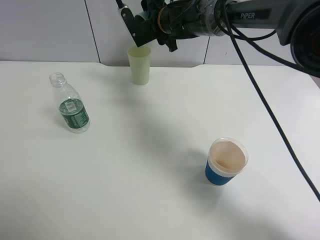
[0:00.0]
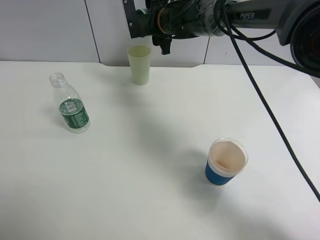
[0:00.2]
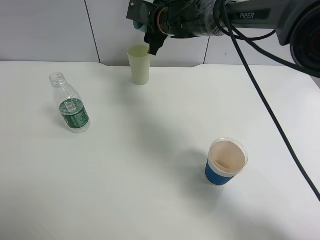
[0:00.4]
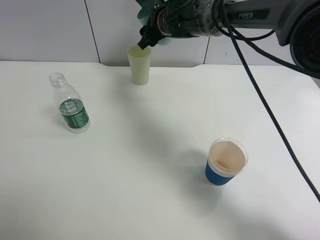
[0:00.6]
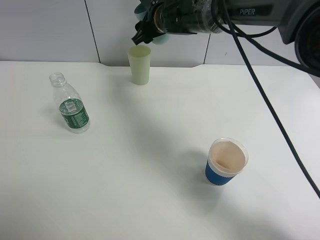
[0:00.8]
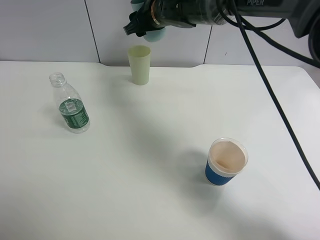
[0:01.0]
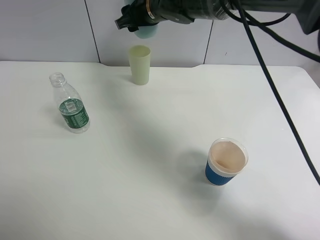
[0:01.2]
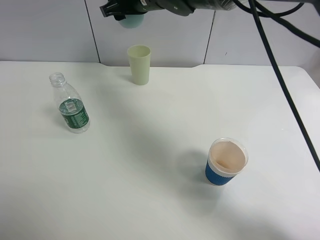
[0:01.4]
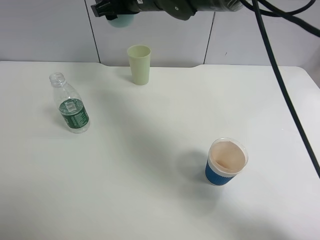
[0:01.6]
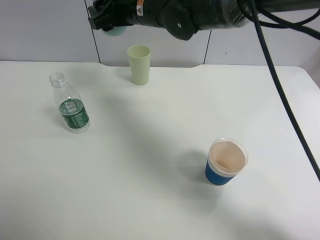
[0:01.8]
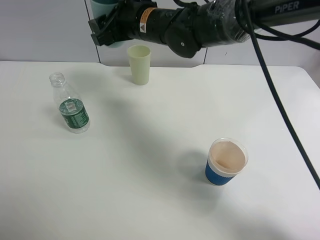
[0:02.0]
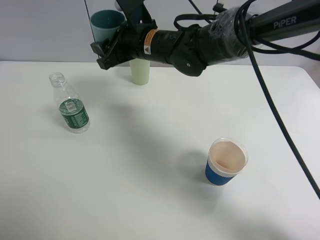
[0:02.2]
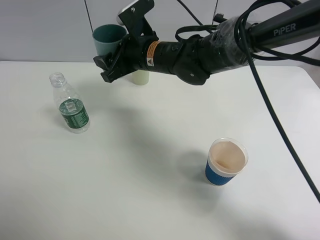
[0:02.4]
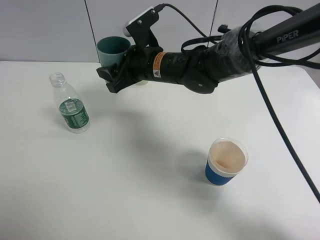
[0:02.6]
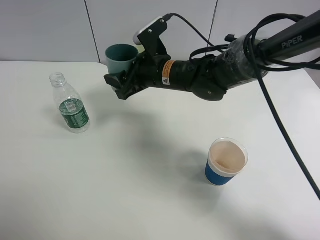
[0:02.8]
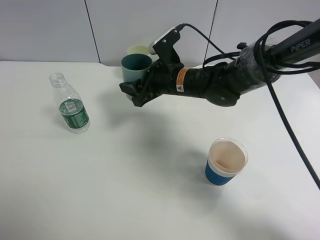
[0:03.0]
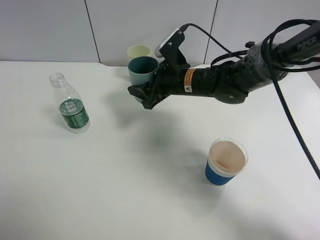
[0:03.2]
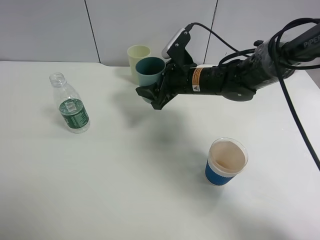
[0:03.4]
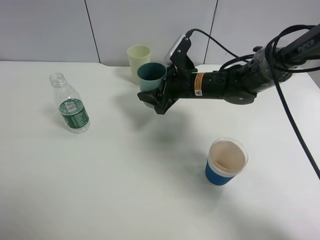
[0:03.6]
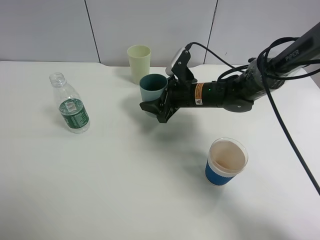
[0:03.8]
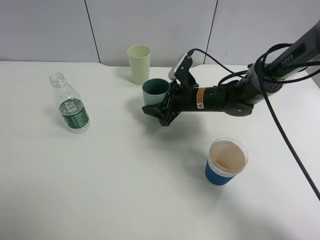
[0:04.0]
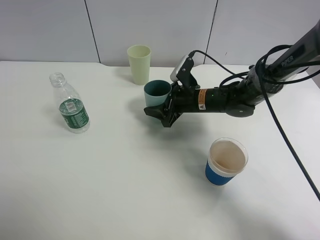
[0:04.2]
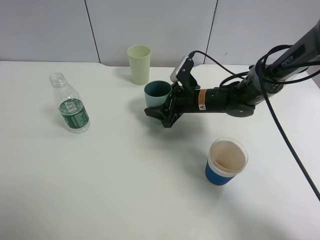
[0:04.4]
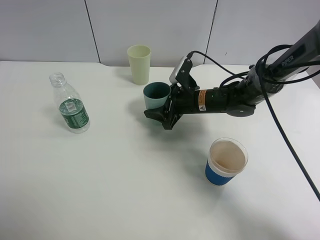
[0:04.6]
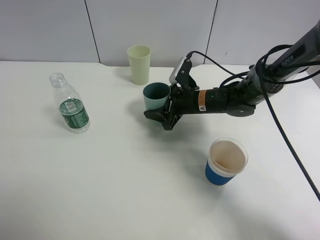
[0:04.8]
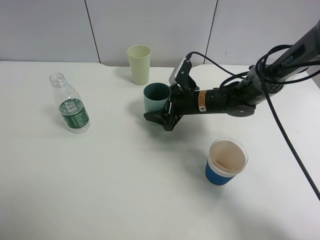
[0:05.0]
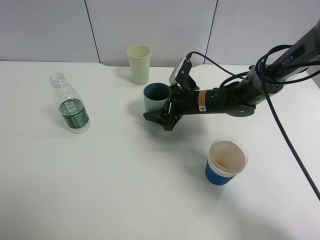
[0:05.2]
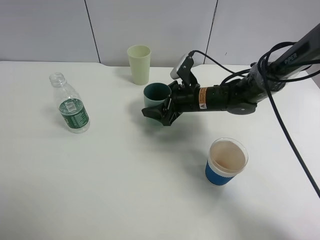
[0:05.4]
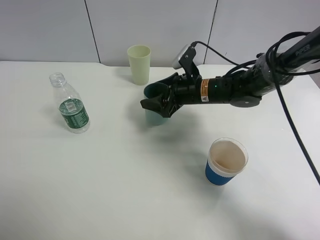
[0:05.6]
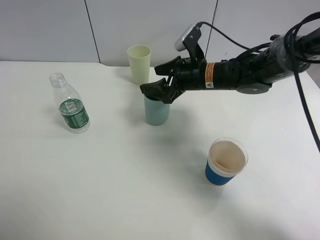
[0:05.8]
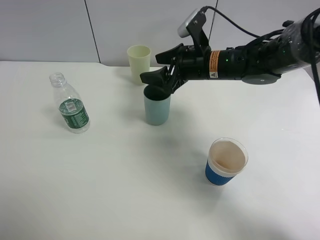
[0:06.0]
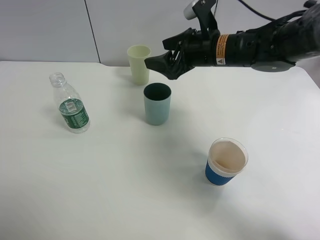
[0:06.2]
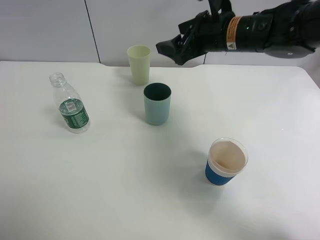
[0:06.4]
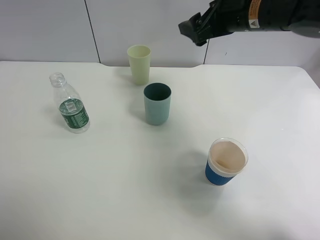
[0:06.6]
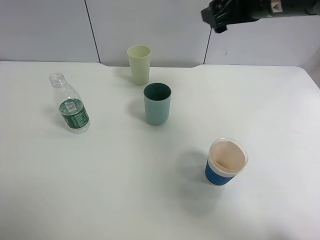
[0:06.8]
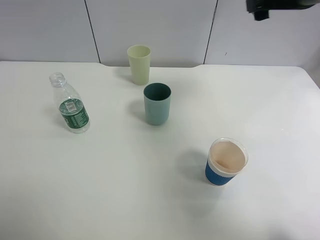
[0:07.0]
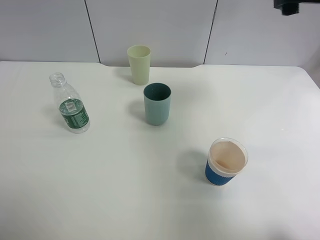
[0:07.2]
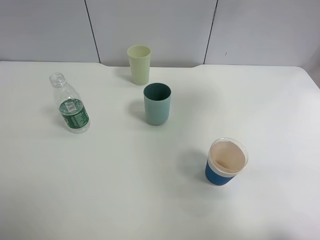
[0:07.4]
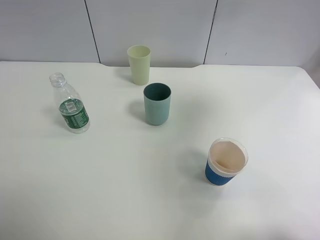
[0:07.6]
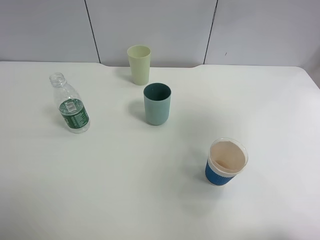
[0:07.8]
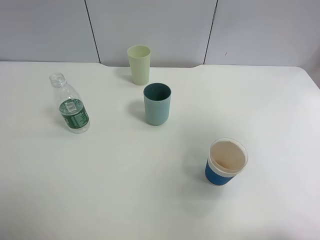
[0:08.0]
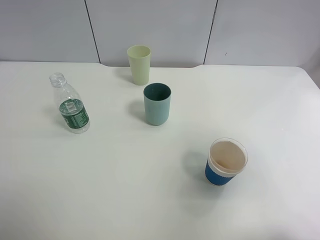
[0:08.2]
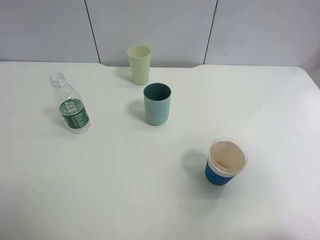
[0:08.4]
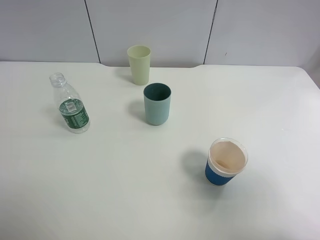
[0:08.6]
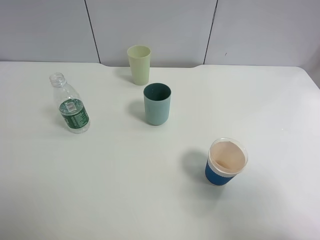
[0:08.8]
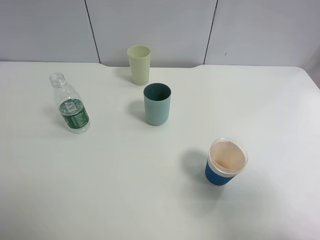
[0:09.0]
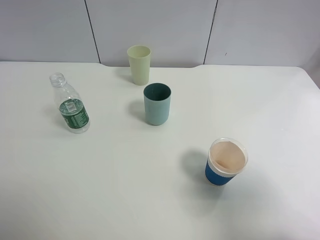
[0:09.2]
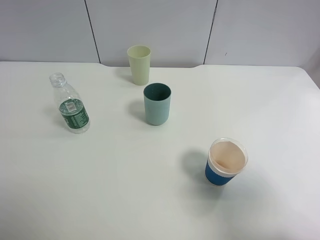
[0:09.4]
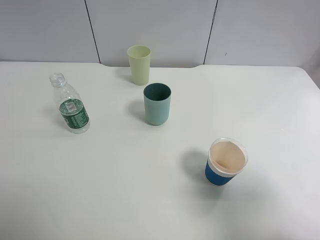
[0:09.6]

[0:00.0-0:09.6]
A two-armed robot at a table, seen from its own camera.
Task of the whole recording: use a clamp to hold the bottle of the drink, pour the beverage into a random cup, then clamp the cup containing the drink and pour the drink into another random cup.
Step, 0.6 to 5.2 s: Place the blue plastic cup on the table with right gripper.
0.0 to 1.6 s: The right gripper moves backward and upward, approximately 10 cm.
1.6 to 3.2 s: The right gripper is displaced downward and to the right by roughly 15 cm.
3.2 to 4.8 s: The right gripper moves downward, about 5 cm.
4.8 to 6.4 s: The right gripper is displaced upward by about 20 cm, and opens.
6.4 to 8.0 s: The right gripper moves backward, to the right and upward, approximately 40 cm.
8.0 to 9.6 s: The right gripper moves downward and backward, approximately 15 cm.

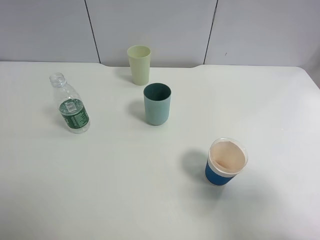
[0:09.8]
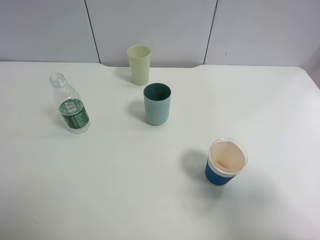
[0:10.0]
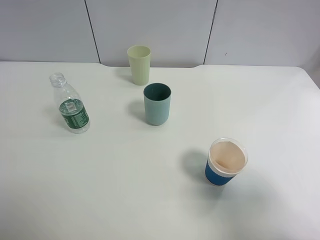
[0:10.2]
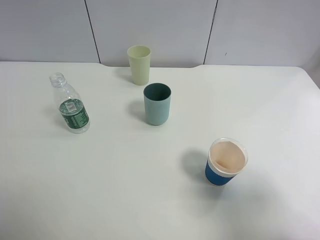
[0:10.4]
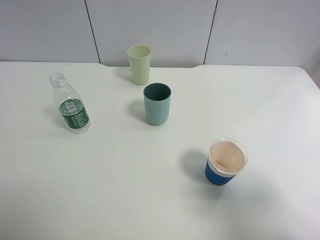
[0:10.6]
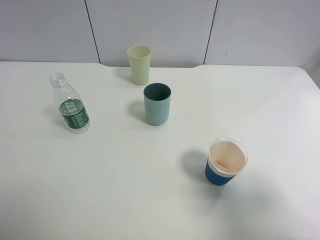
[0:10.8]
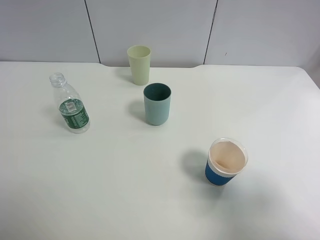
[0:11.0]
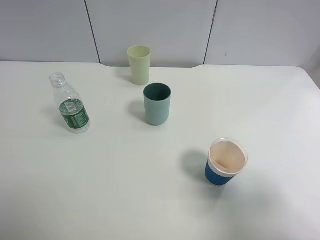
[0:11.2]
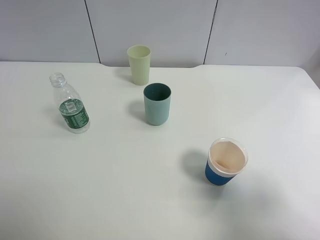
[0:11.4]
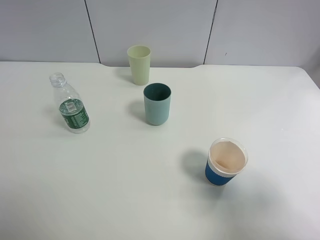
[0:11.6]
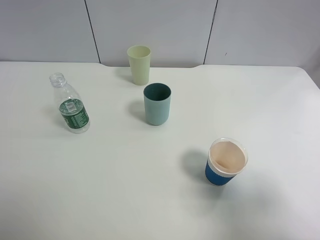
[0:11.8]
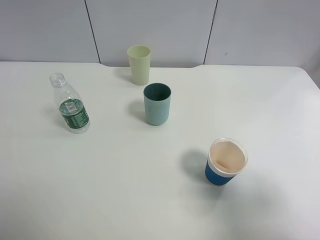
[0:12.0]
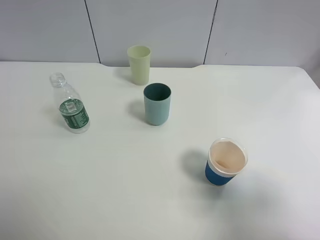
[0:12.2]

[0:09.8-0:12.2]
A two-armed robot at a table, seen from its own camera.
Task of the whole recording: use a clamp to hold the bottle of the drink, pour the beverage into a random cup, then clamp the cup containing the drink and pour the drink into another random cup.
11.0 to 12.2 s: Both grippers stay about where they are.

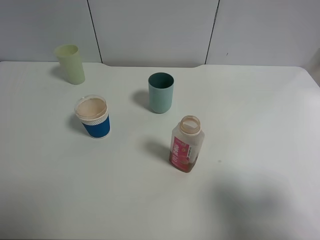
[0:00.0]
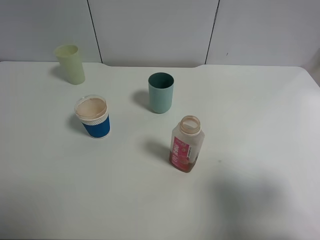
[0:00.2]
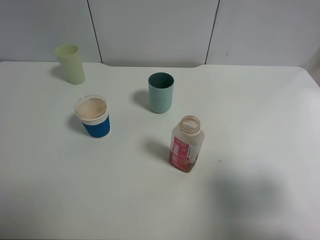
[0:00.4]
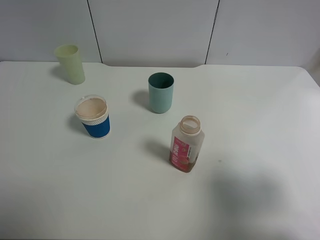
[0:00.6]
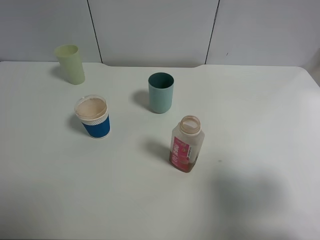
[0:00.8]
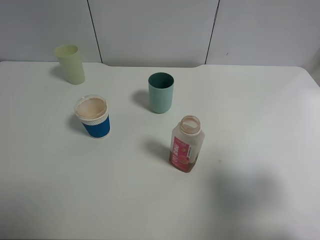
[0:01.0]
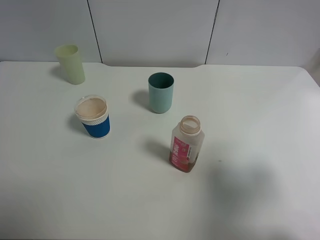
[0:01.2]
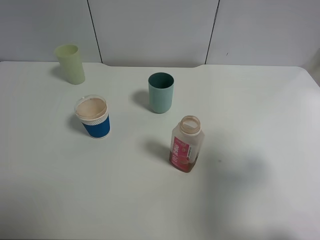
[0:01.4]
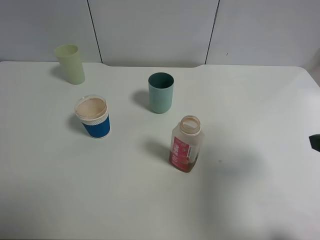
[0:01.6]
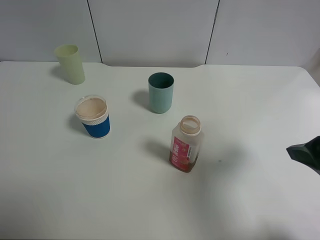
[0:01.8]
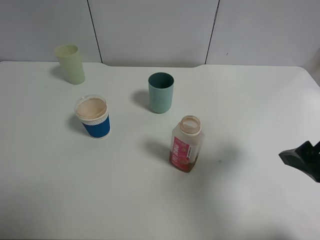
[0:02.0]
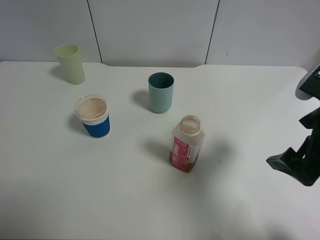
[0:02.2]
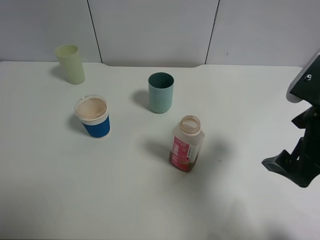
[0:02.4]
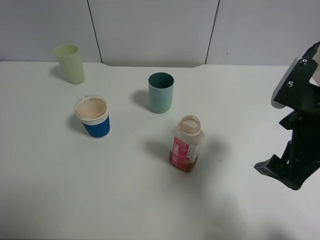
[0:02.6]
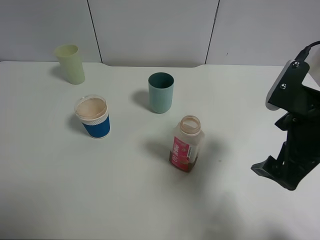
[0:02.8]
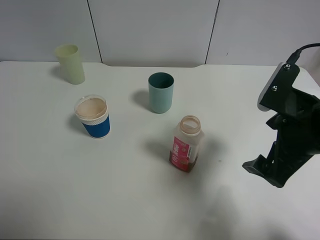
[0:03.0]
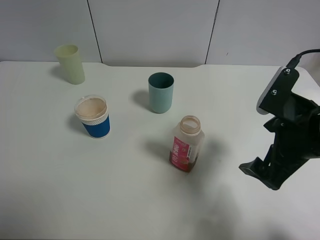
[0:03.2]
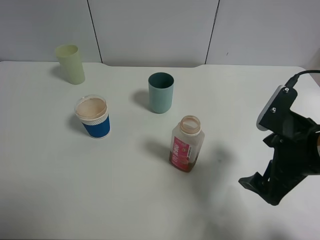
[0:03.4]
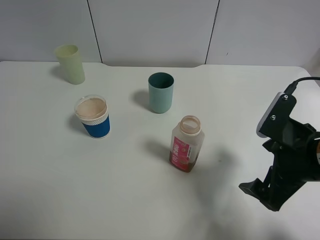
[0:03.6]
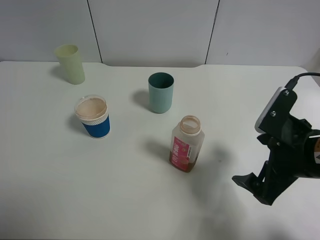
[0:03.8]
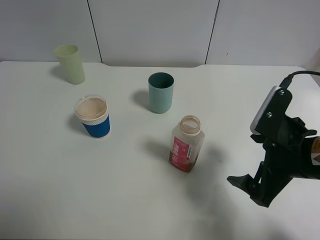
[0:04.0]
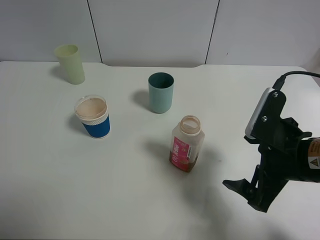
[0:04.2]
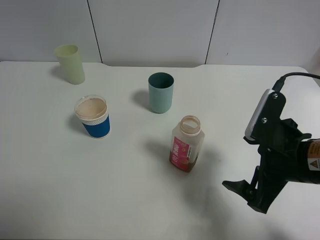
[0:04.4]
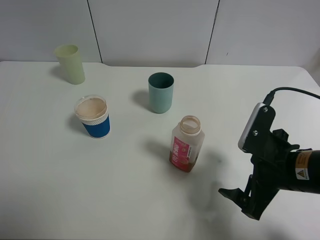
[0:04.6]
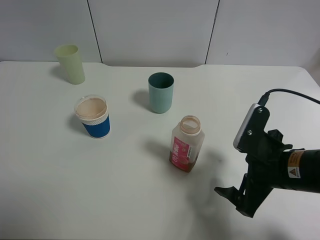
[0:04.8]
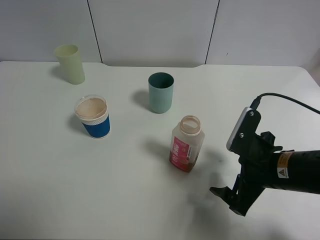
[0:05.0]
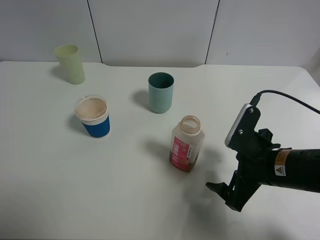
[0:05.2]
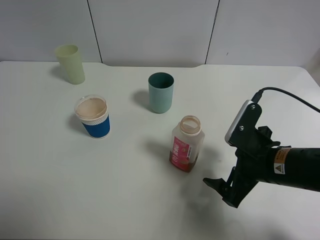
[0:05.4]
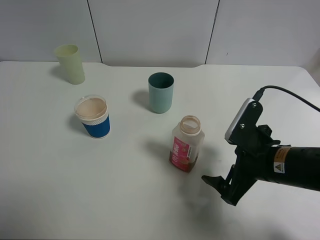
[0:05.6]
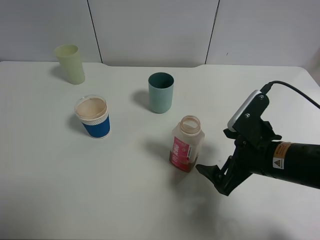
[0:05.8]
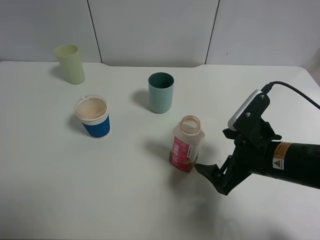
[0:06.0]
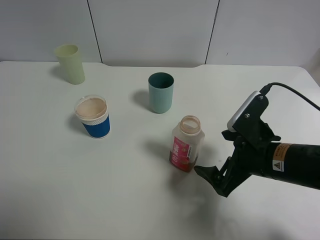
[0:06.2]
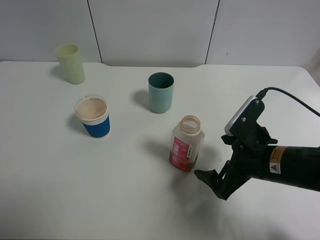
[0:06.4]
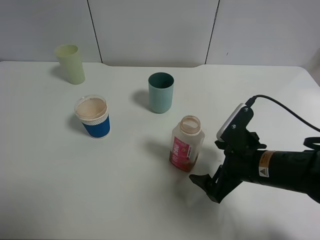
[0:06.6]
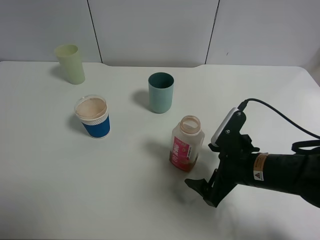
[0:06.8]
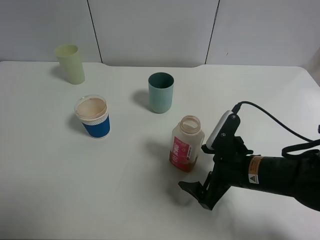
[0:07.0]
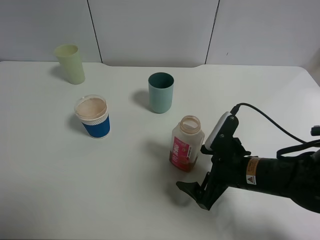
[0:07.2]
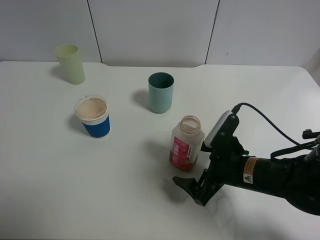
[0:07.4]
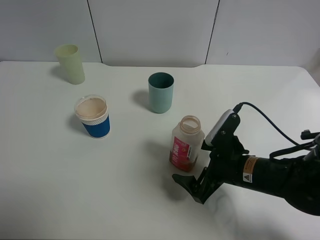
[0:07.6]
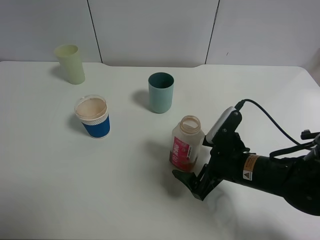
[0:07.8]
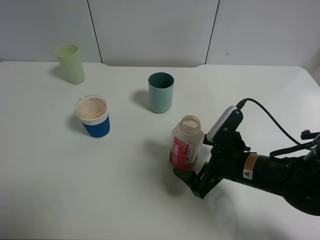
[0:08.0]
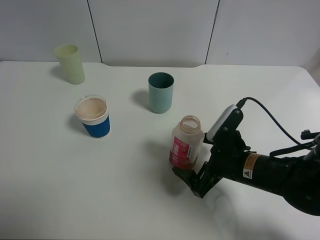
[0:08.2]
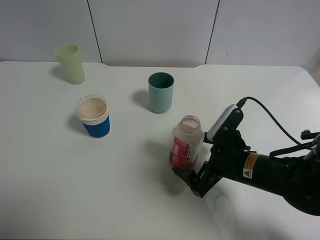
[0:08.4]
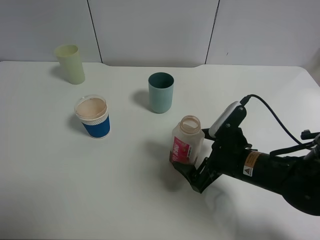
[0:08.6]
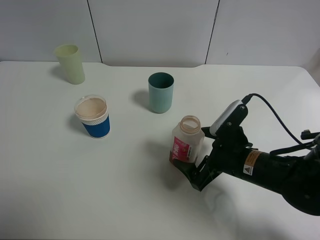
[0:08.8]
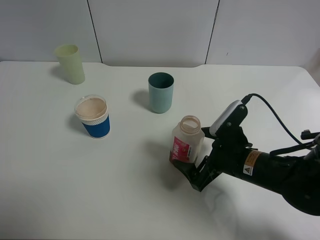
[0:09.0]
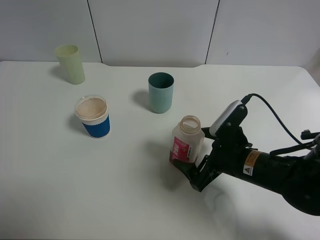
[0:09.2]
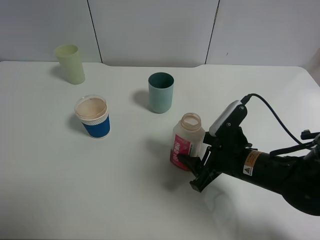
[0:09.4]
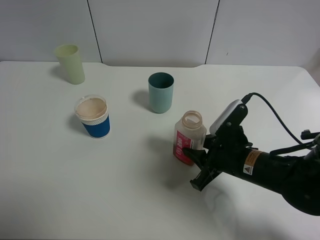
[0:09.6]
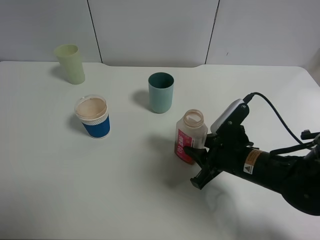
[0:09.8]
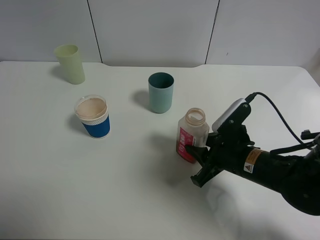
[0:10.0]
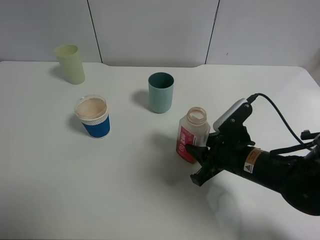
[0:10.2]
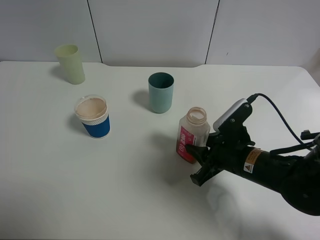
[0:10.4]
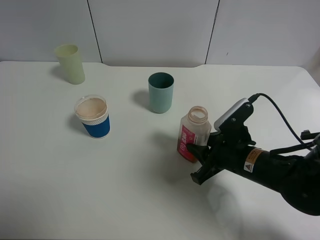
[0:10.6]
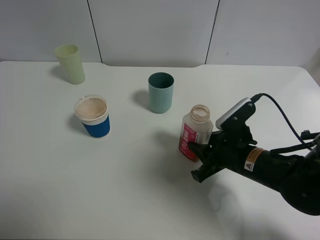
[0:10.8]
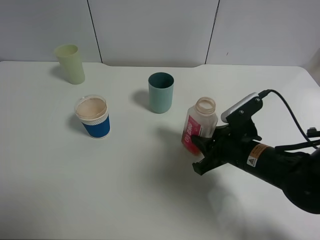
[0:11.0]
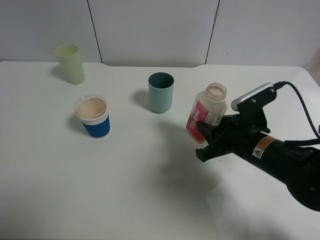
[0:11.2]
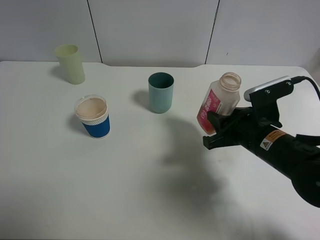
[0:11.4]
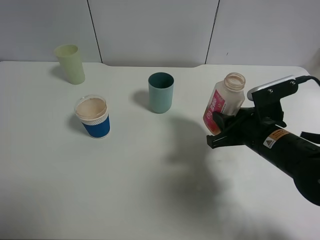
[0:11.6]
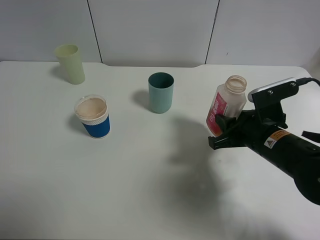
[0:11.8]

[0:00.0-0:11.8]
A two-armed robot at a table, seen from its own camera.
Task of the whole recording: use a clamp to hold the bottle of the drink, pour the beverage into a random cup, then clamp the cup containing the drink and pour the drink into another random cup.
Step, 0.0 to 11.0 s: Pick up the drink bottle with right gripper.
0.0 to 1.4 s: The right gripper is displaced forward by roughly 10 cm.
1.4 to 3.0 s: The right gripper moves to the left, forward and downward, about 10 cm.
3.0 to 4.4 s: The grippers make only small movements.
4.4 to 6.0 s: The grippers stay close to where they were, moving slightly.
6.0 to 7.4 s: The right gripper travels downward by some 5 cm.
7.4 to 8.8 s: There are only small adjustments of the grippers.
8.8 to 10.4 s: The right gripper closes its fingers.
10.4 to 11.8 s: The right gripper shifts by some 5 cm.
